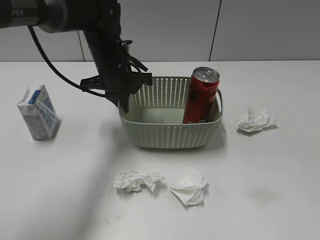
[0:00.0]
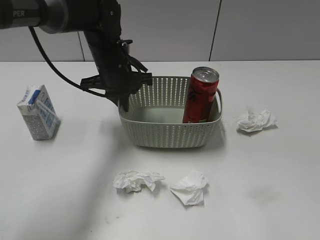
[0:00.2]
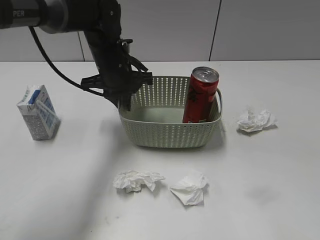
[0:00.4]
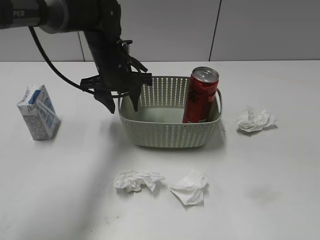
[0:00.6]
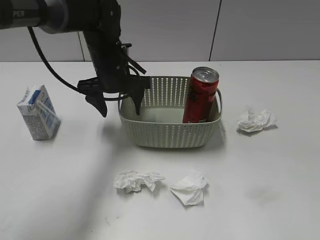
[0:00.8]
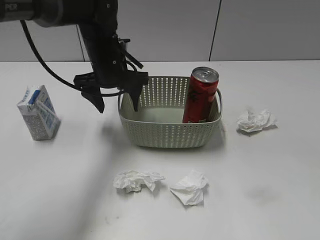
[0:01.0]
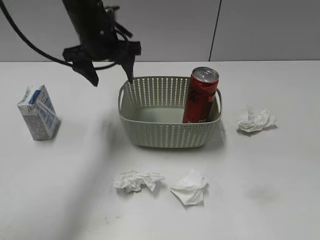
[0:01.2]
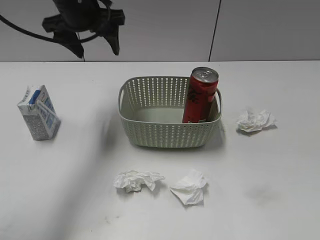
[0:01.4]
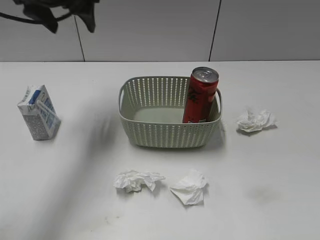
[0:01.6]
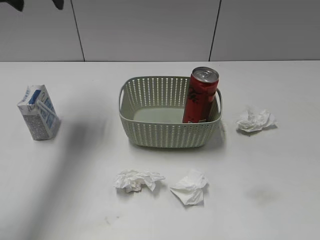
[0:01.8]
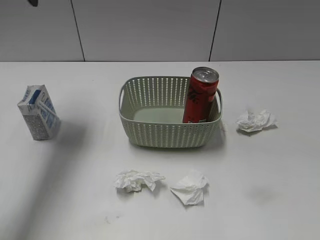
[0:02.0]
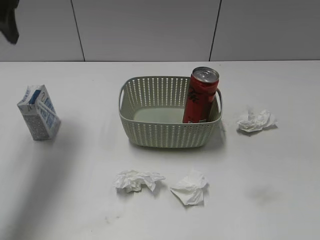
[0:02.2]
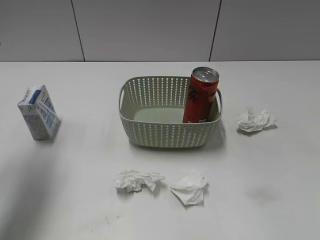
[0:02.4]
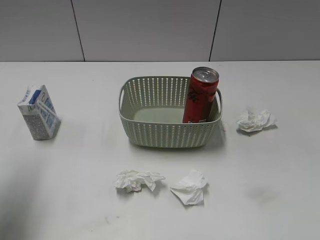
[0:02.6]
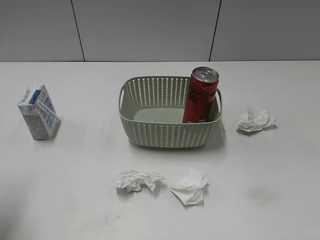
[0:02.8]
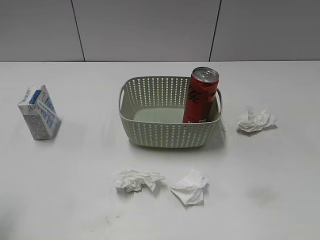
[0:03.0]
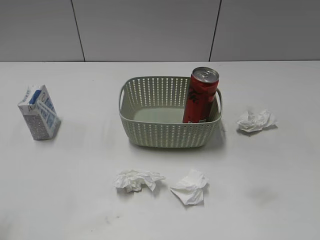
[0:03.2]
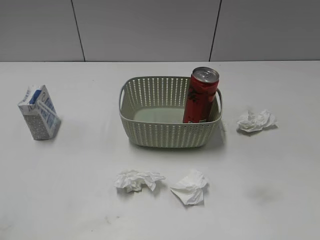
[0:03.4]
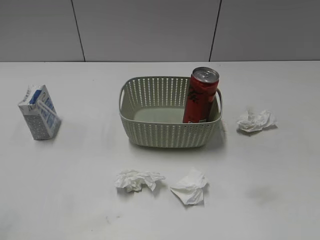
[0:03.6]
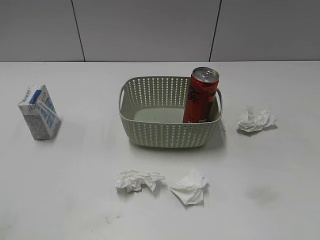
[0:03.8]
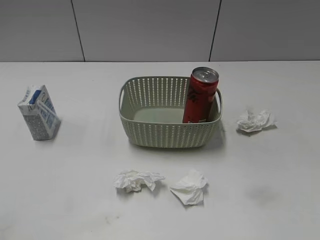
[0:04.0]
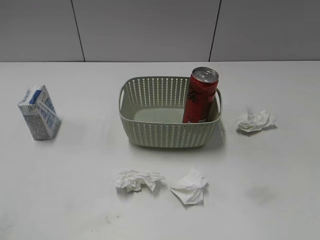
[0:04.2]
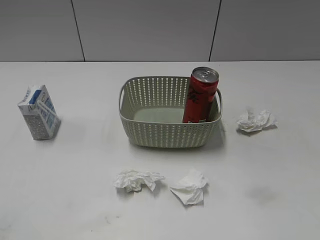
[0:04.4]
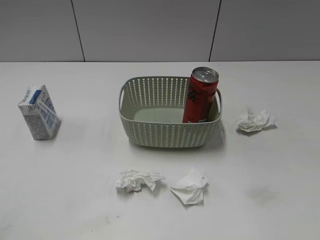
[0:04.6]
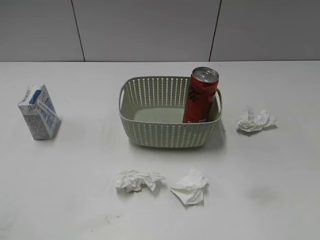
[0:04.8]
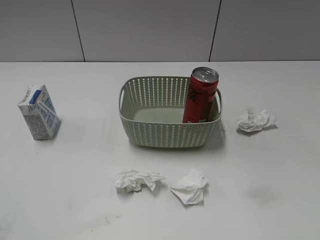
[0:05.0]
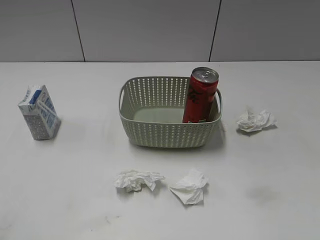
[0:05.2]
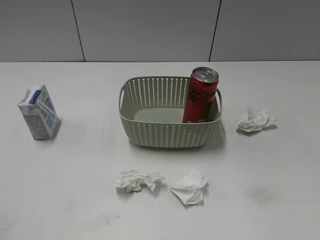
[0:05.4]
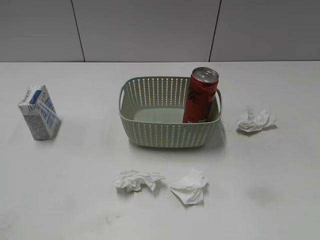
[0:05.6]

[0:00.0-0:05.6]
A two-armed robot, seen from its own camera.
0:00.0 to 0:01.4: The left gripper is displaced upward and to the left by approximately 15 cm, and opens its fingers; the right gripper is displaced backward and downward by roughly 15 cm.
0:01.4 to 0:02.8: The left gripper is displaced backward and to the left by roughly 30 cm.
0:02.8 to 0:04.2: The left gripper shifts roughly 15 cm backward.
